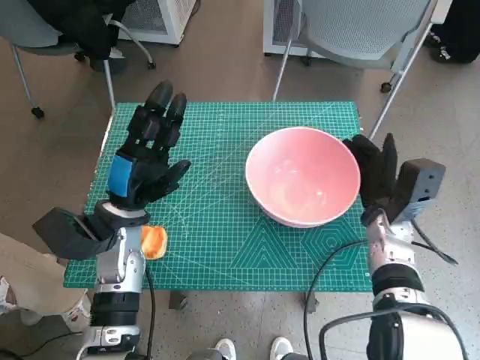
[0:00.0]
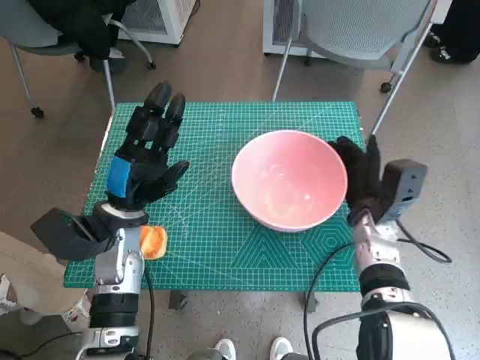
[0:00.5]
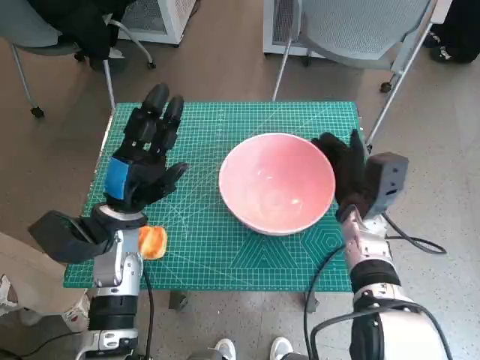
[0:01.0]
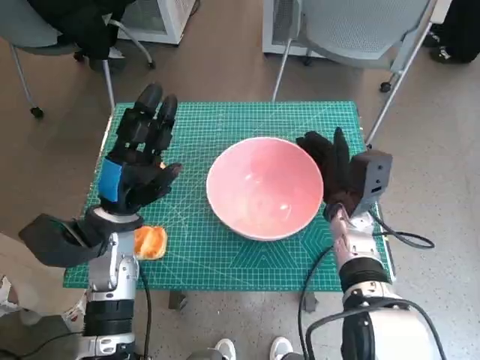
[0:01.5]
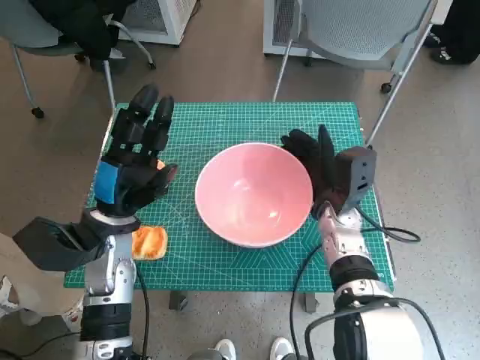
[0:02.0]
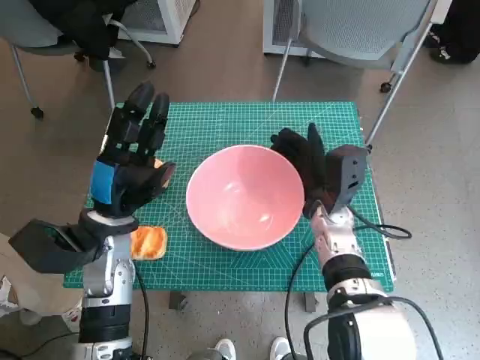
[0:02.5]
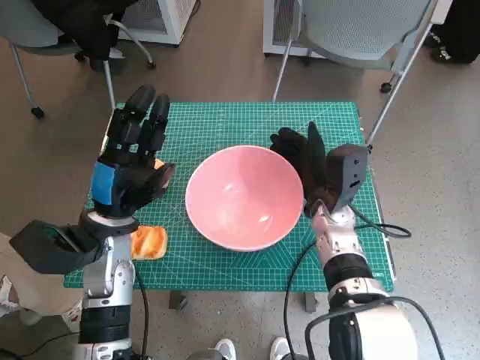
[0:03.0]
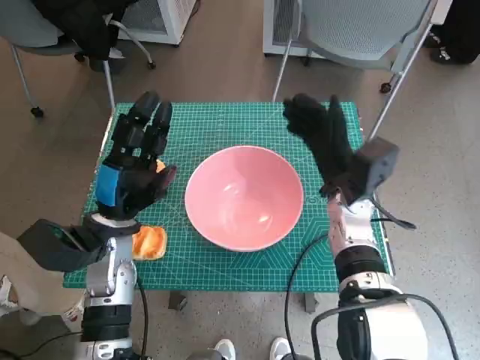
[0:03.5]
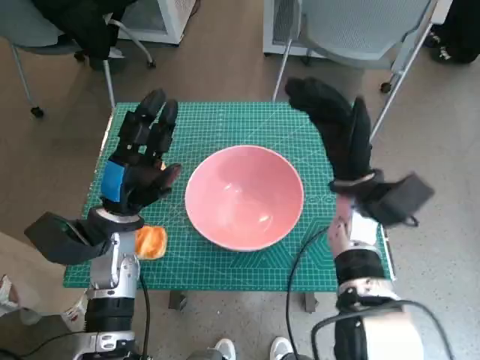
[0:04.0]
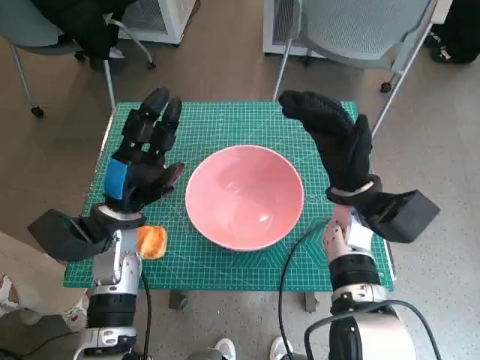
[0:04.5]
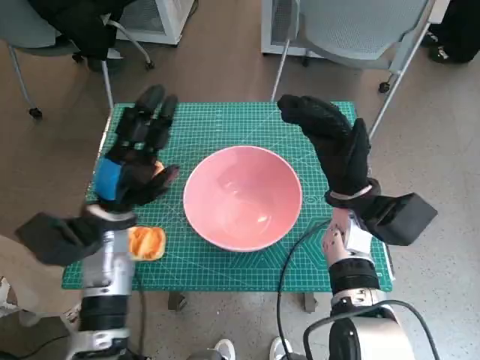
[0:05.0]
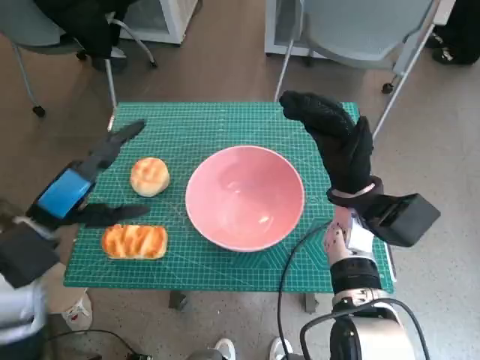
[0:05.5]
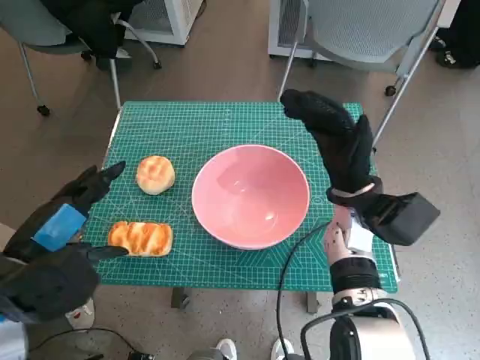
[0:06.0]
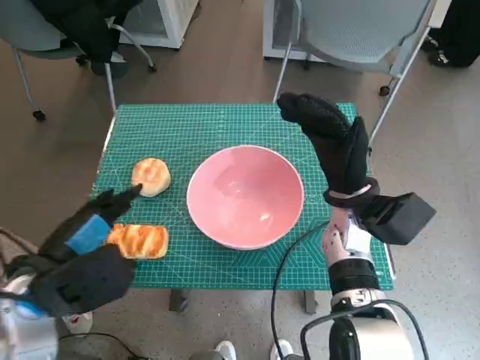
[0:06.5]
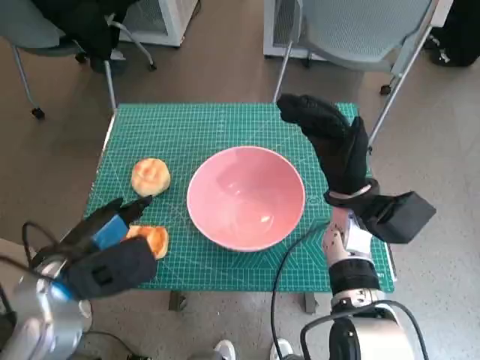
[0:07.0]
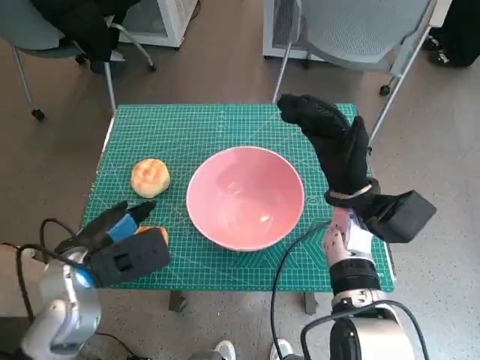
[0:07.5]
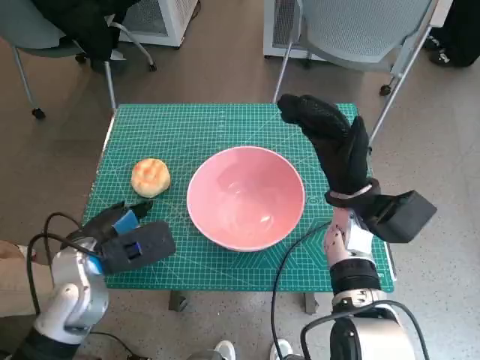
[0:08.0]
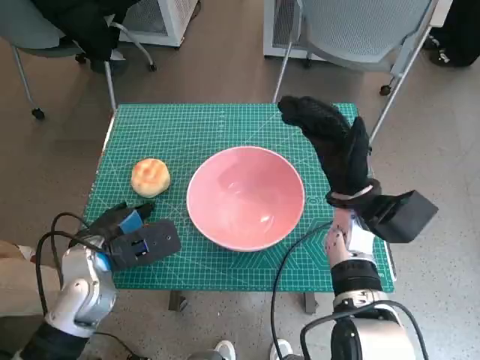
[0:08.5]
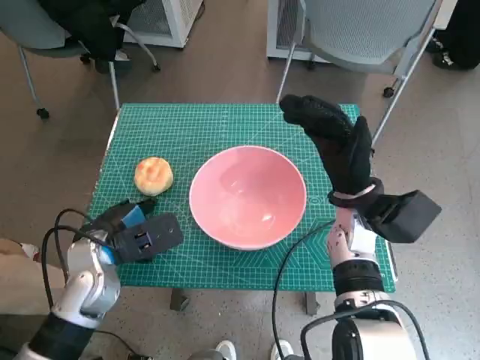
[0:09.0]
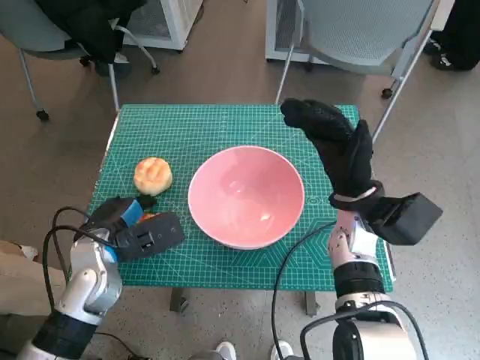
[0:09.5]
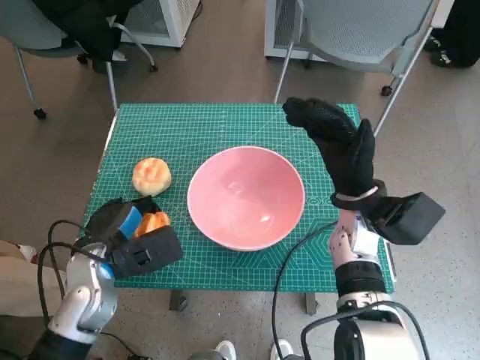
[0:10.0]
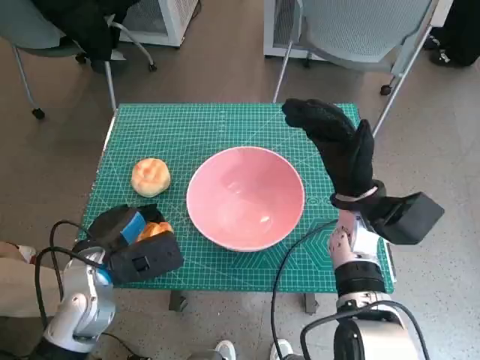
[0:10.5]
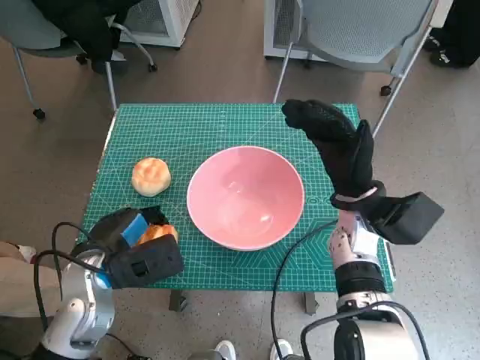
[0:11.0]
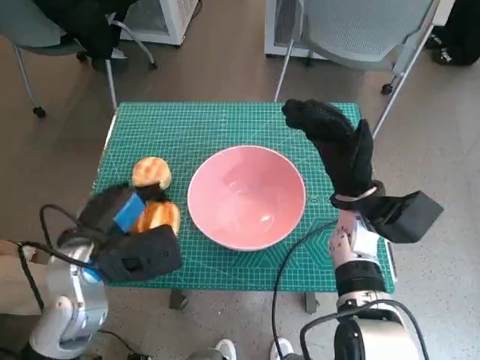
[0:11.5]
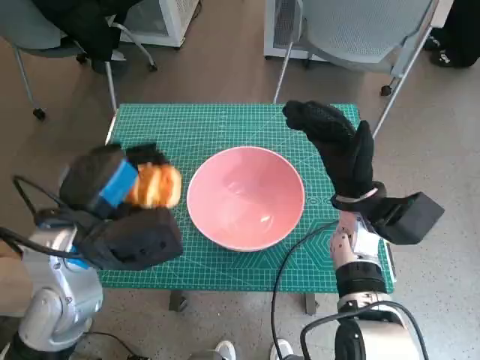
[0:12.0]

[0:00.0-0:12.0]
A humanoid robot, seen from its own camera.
Step, 0:00.0 to 0:03.0: Move the pink bowl to the center of table with right hand.
Step, 0:03.5 to 0:08.5: Grasp the long bread with left hand.
0:00.0 to 0:02.0: The right hand is displaced to the left by roughly 10 cm.
0:02.0 to 0:04.0: The right hand goes approximately 5 cm upward.
0:04.0 to 0:06.0: The left hand shifts some 15 cm backward and upward.
0:06.0 to 0:08.0: The left hand heads downward and forward, covering some 10 cm.
0:08.0 to 0:10.0: The hands make only small movements.
0:10.0 to 0:12.0: The left hand heads upward, covering roughly 10 cm.

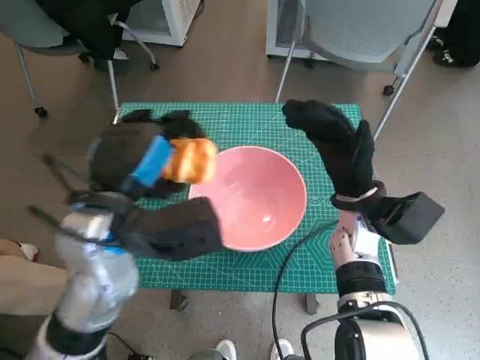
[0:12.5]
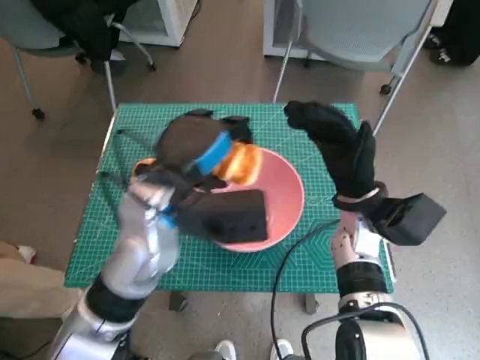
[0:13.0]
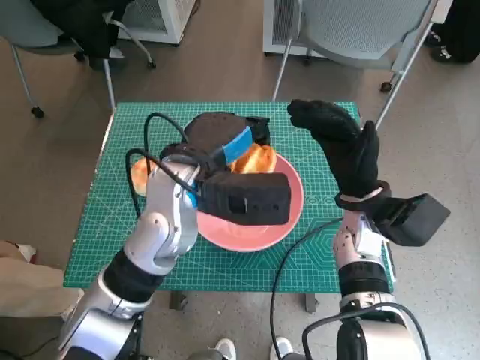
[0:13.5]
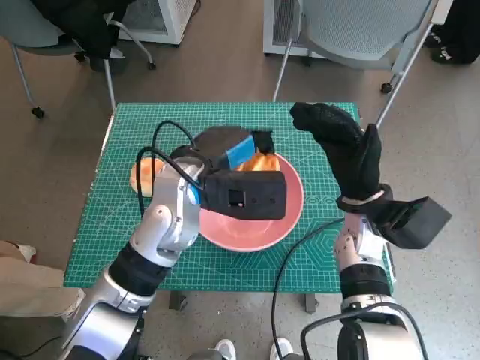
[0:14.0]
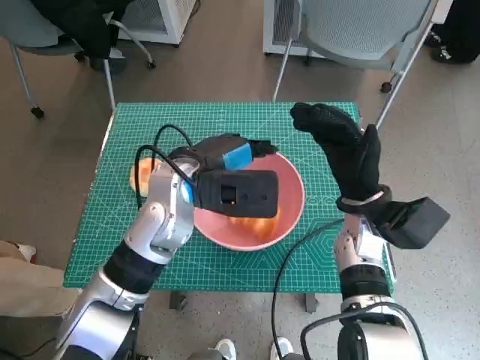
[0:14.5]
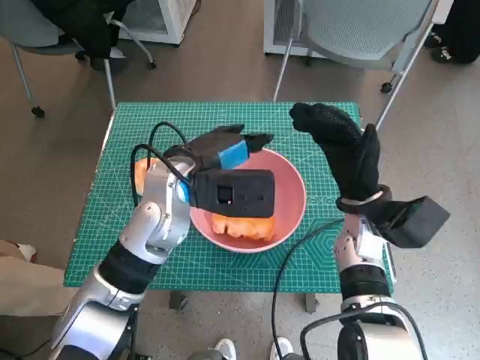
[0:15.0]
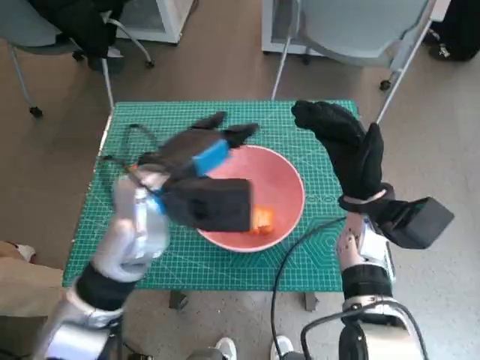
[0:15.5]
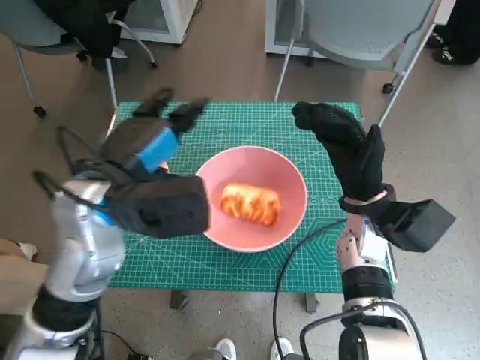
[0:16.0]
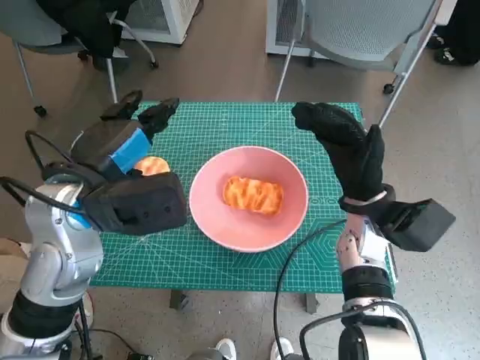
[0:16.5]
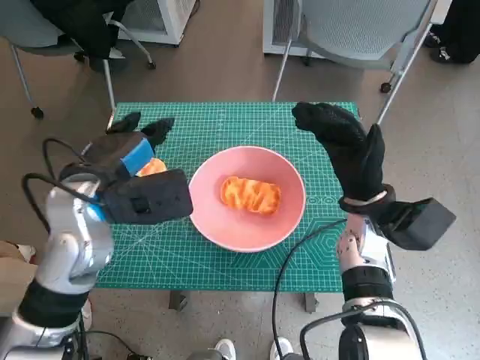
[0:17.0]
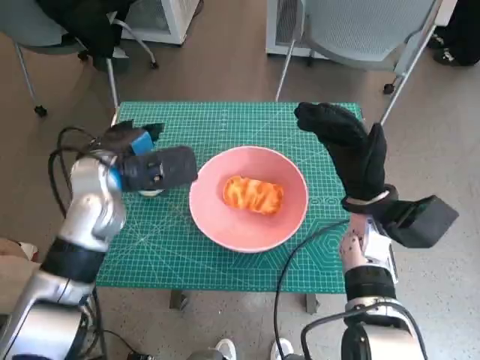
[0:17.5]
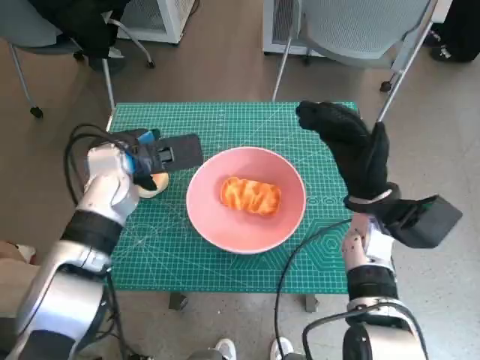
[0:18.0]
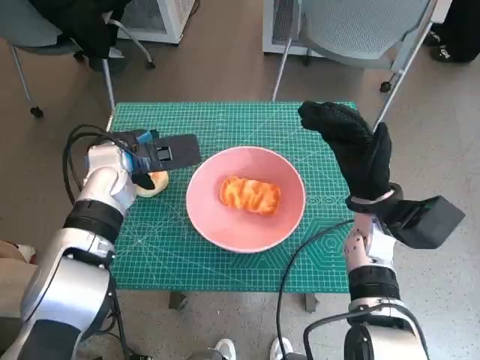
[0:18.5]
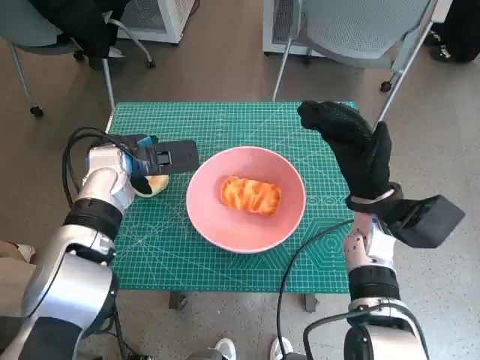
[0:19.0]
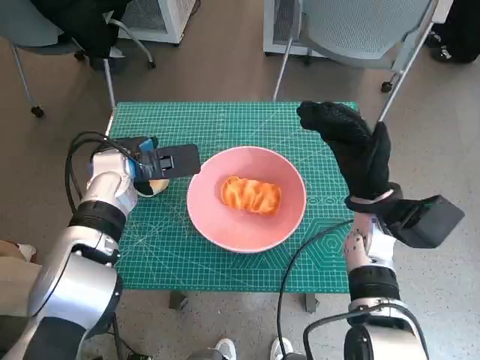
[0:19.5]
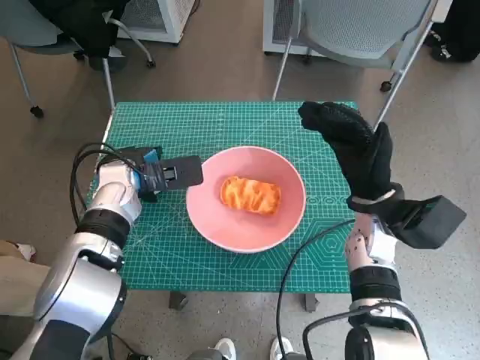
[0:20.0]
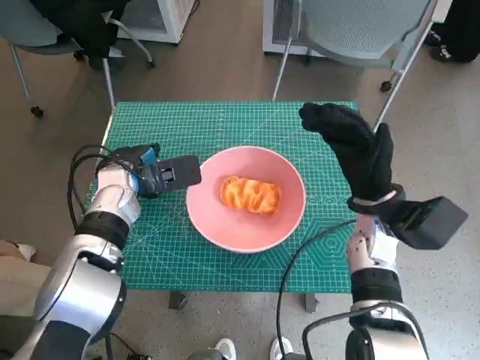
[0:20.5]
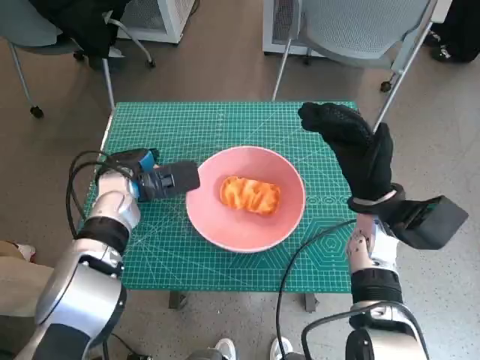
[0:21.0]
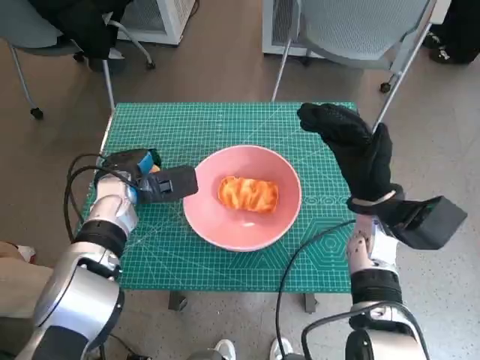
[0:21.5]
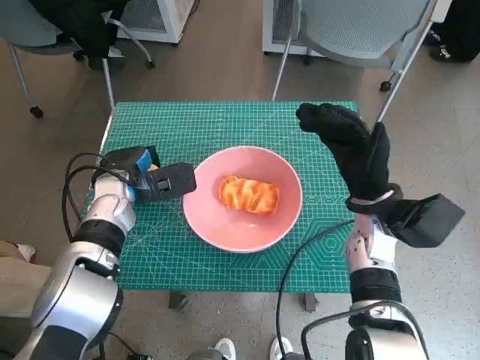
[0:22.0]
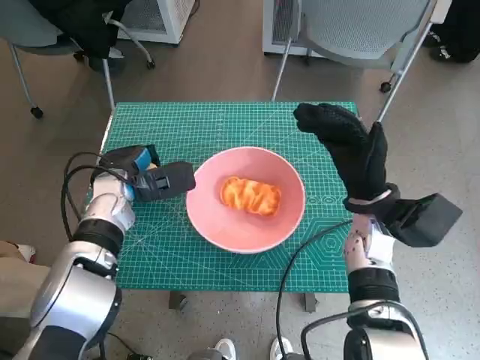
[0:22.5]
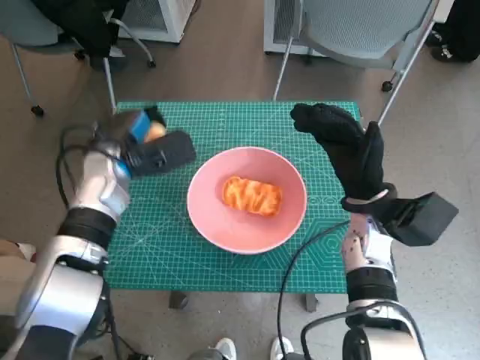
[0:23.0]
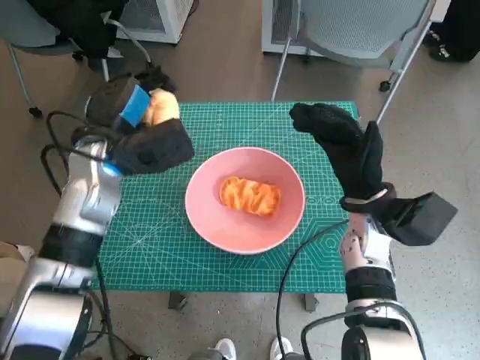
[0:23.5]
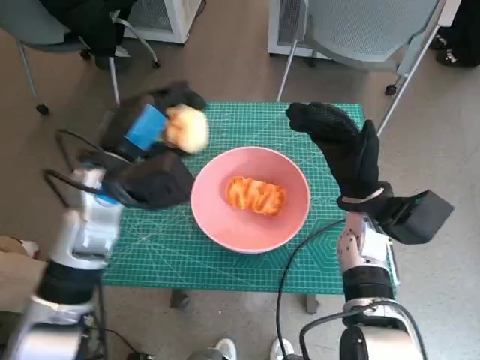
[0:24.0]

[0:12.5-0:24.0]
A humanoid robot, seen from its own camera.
Step, 0:12.5 to 0:14.5: Place the long bread in pink bowl with left hand.
Step, 0:15.0 to 0:21.0: Grasp the round bread with left hand.
0:12.5 to 0:14.5: The left hand goes approximately 10 cm forward and to the right.
0:14.5 to 0:16.5: The left hand heads to the left and backward, covering roughly 10 cm.
0:16.5 to 0:18.5: The left hand heads forward and downward, covering roughly 15 cm.
0:18.5 to 0:22.0: The hands move only a little.
0:22.0 to 0:24.0: The left hand travels upward by some 10 cm.
